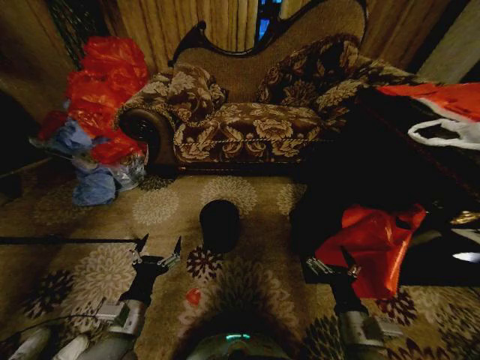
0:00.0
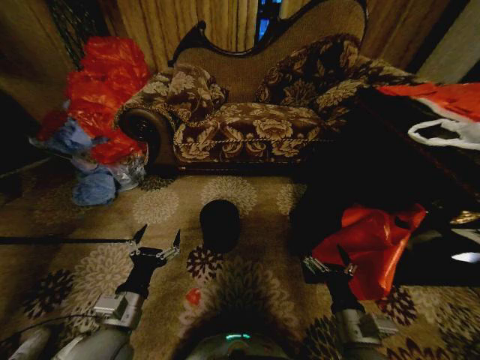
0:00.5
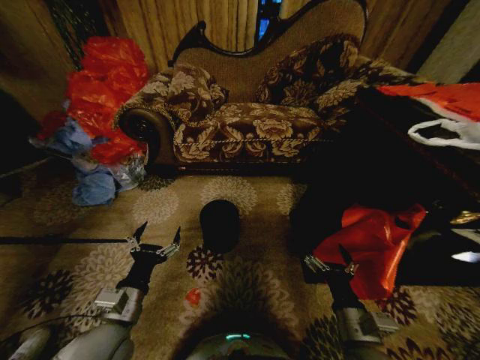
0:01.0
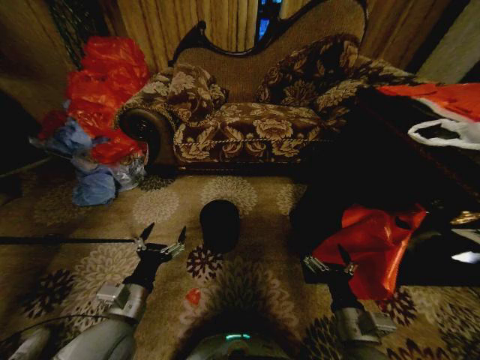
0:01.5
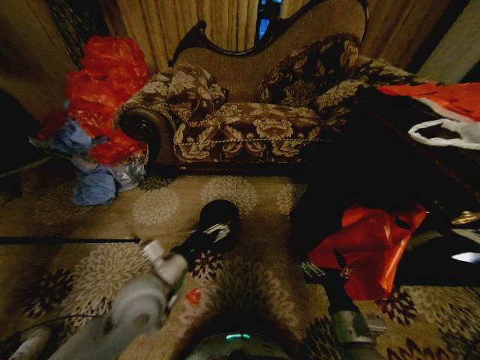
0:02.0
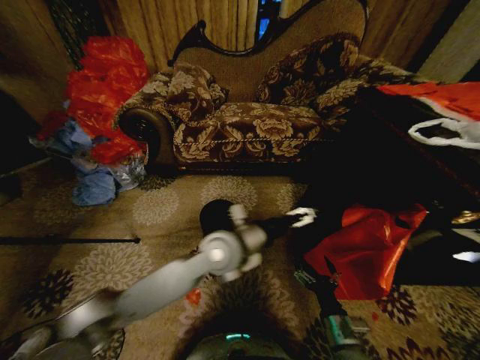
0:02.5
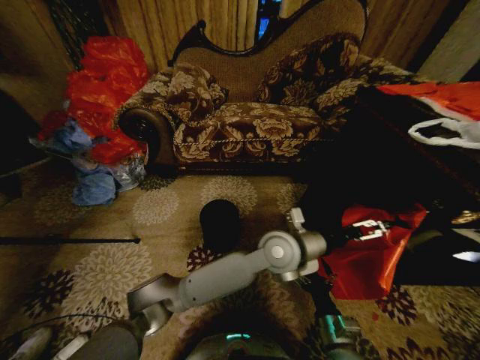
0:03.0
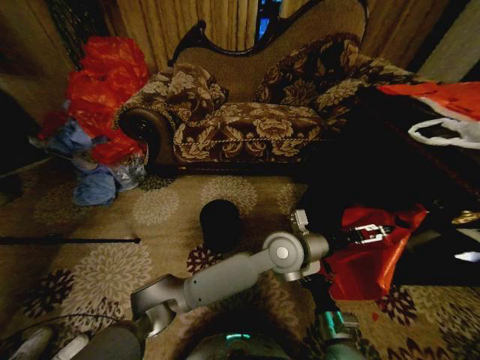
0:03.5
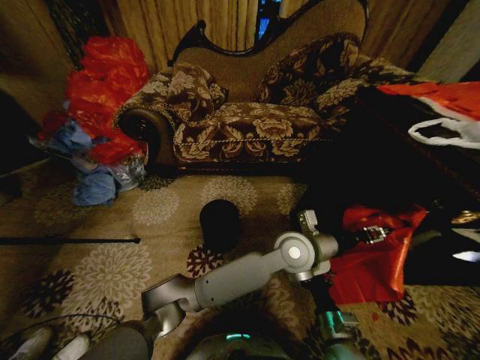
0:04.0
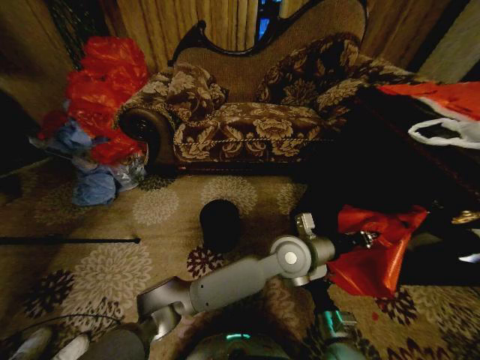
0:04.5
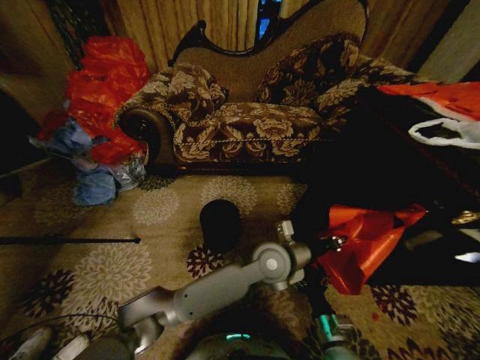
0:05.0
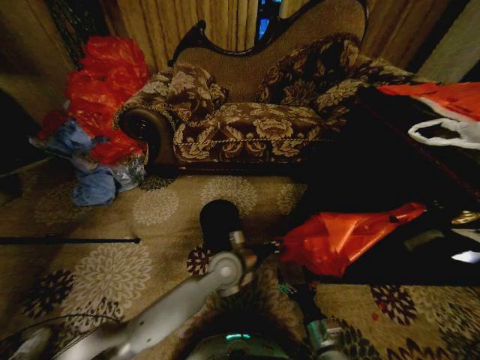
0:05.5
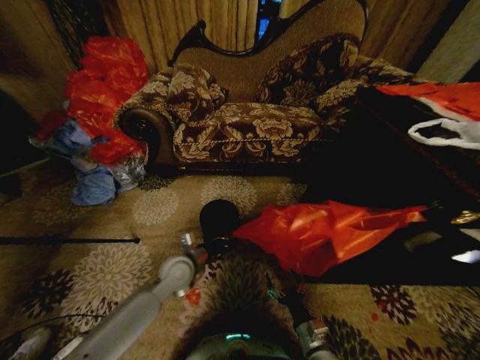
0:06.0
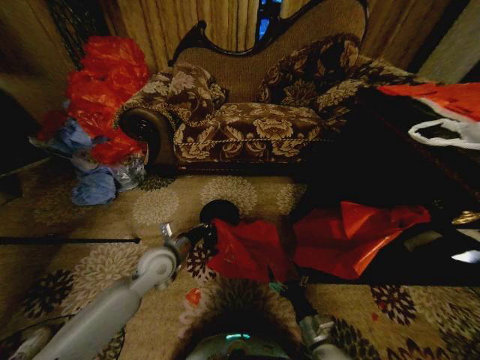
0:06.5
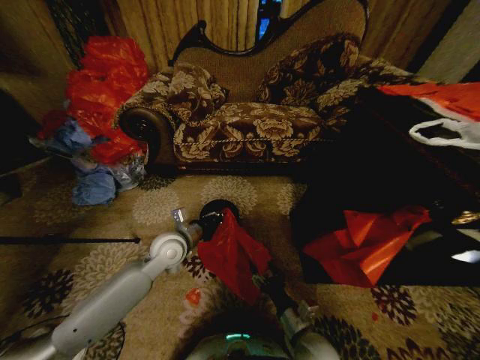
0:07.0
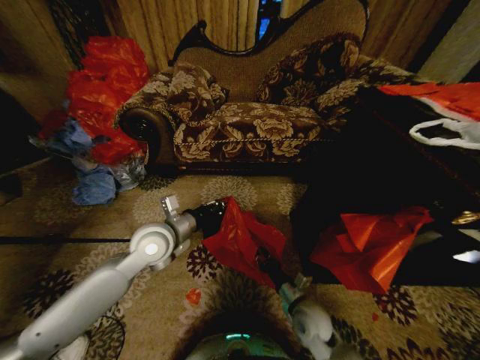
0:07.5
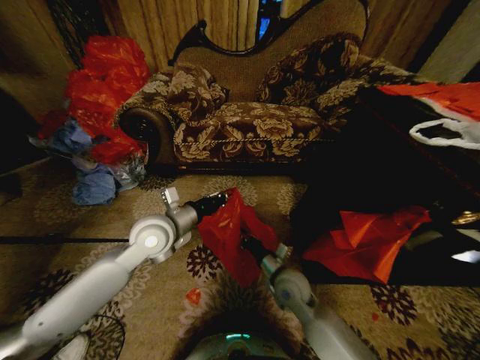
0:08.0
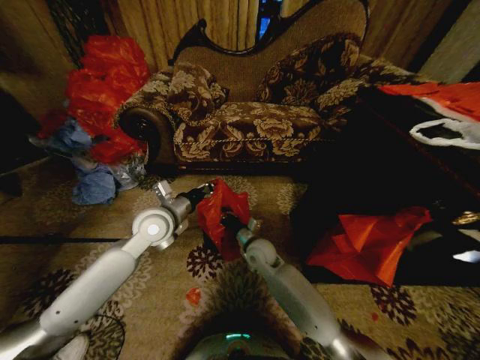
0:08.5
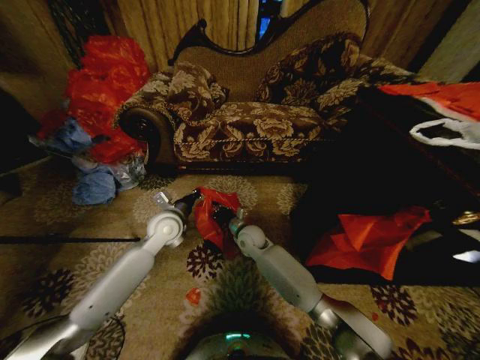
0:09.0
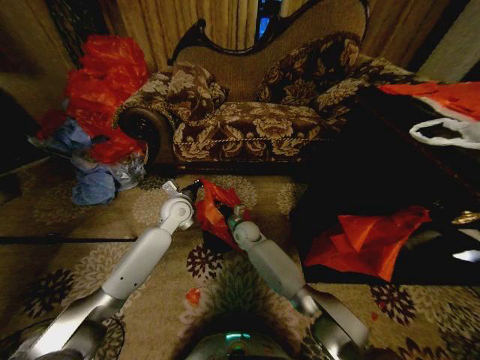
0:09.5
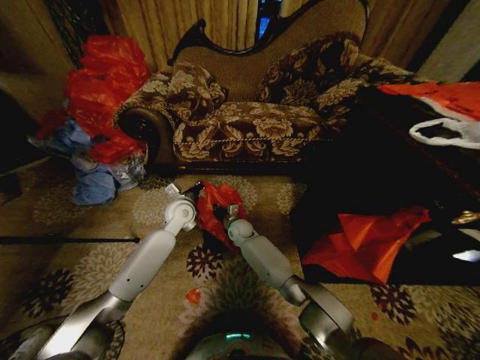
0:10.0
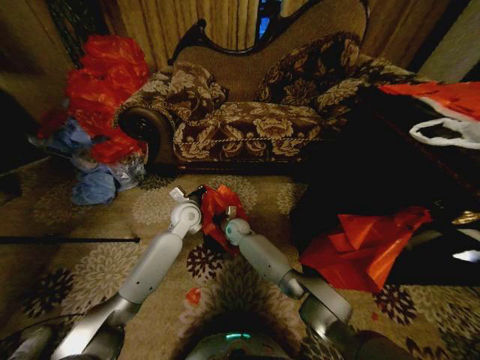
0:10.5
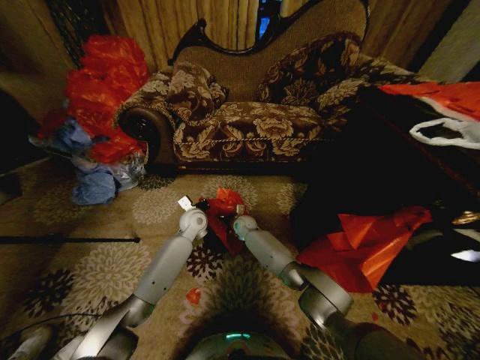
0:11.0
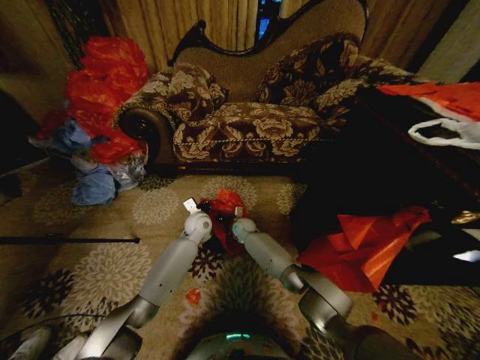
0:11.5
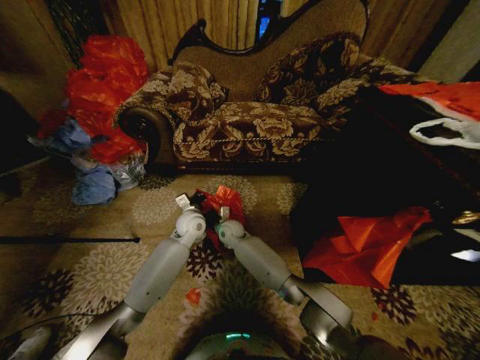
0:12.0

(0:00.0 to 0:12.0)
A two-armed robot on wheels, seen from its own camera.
Task of the whole recording: Place a garbage bag over the trash bin.
0:02.0 - 0:04.0: The right gripper goes some 5 cm downward. Meanwhile the left gripper goes some 30 cm to the right, and closes up.
0:04.0 - 0:06.0: The left gripper moves to the left, some 30 cm, and closes its fingers. Meanwhile the right gripper travels downward by some 5 cm.
0:06.0 - 0:08.0: The left gripper moves upward, approximately 15 cm, while the right gripper heads forward, upward and to the left, covering about 20 cm, and closes up.
0:08.0 - 0:10.0: The left gripper travels forward and downward by some 15 cm. The right gripper moves forward and to the left, approximately 25 cm.
0:10.0 - 0:12.0: The right gripper ends up roughly 5 cm from where it was, and opens.

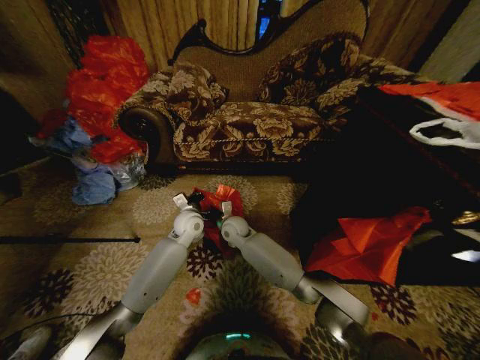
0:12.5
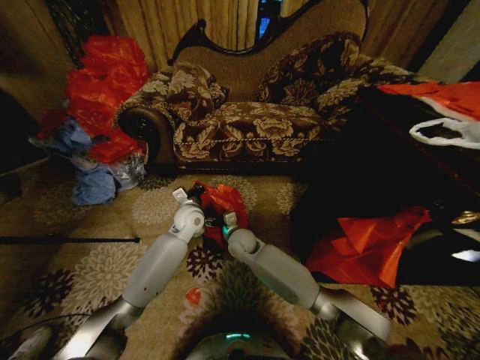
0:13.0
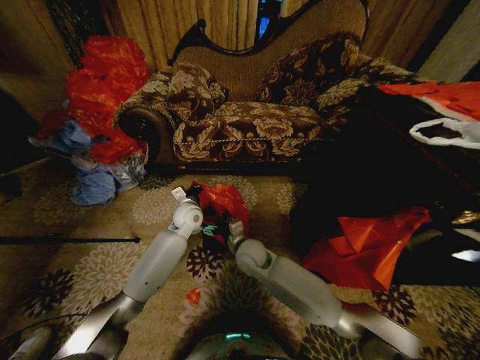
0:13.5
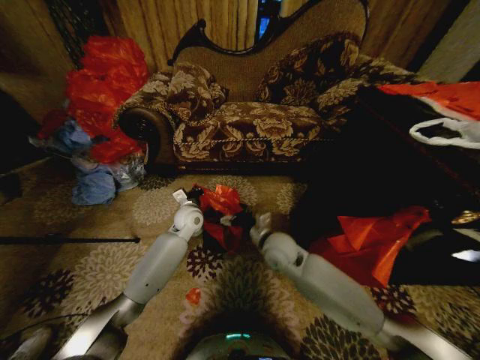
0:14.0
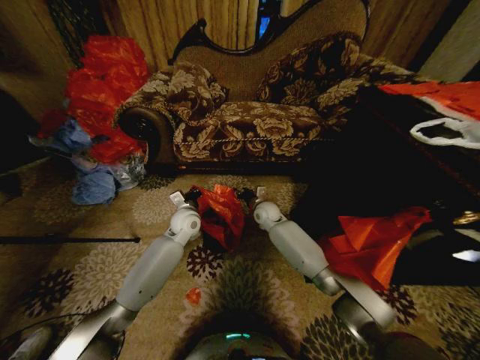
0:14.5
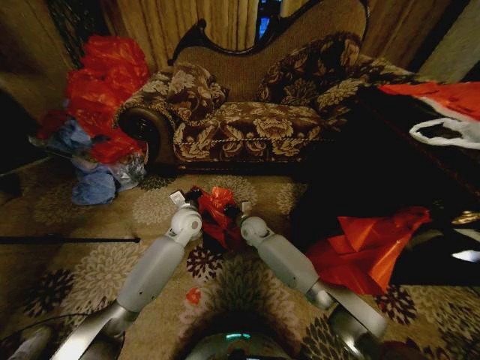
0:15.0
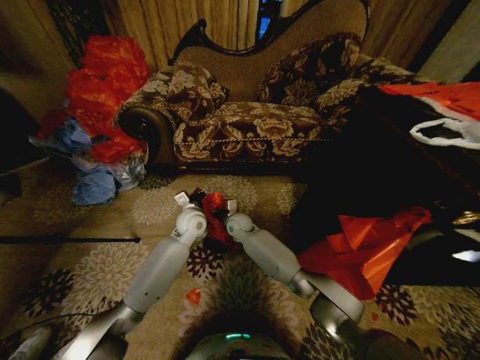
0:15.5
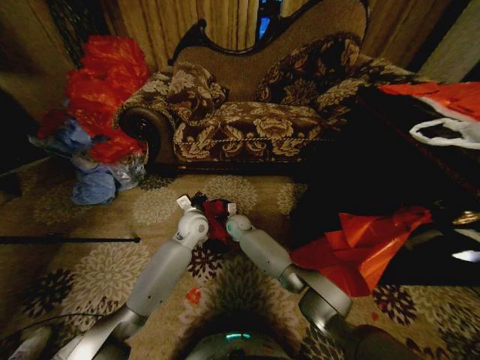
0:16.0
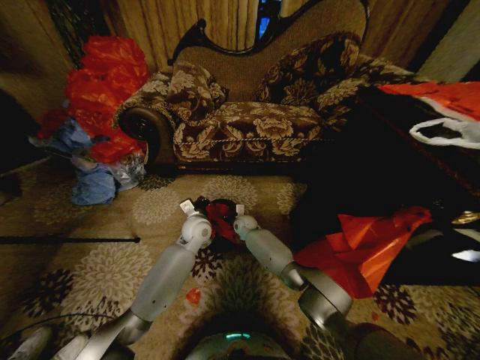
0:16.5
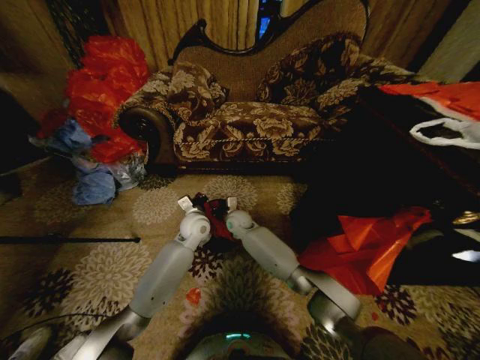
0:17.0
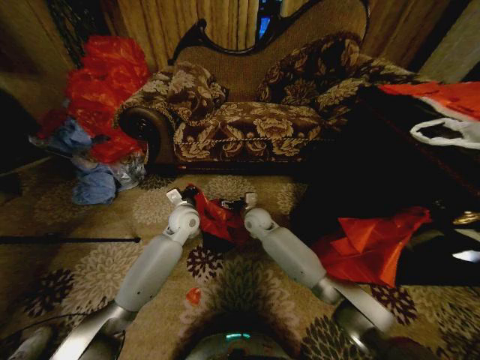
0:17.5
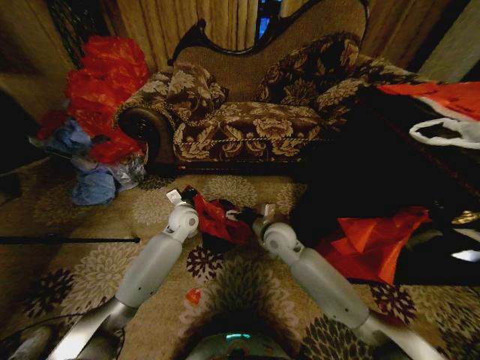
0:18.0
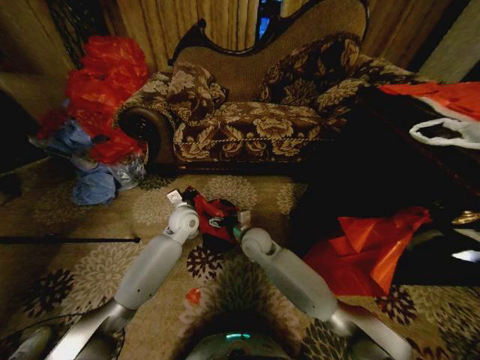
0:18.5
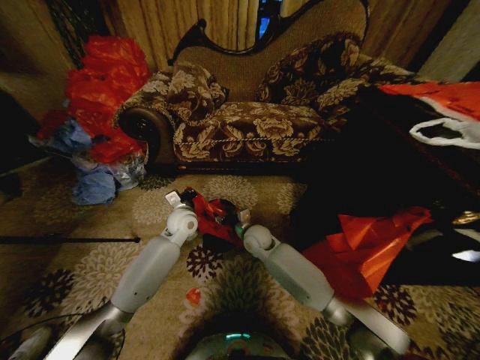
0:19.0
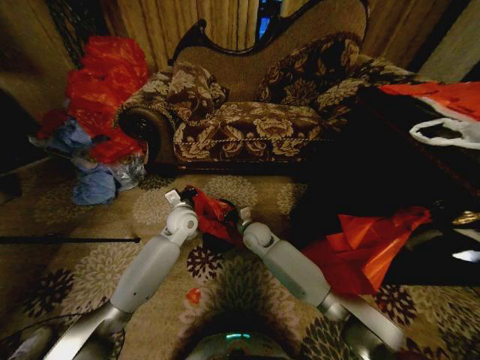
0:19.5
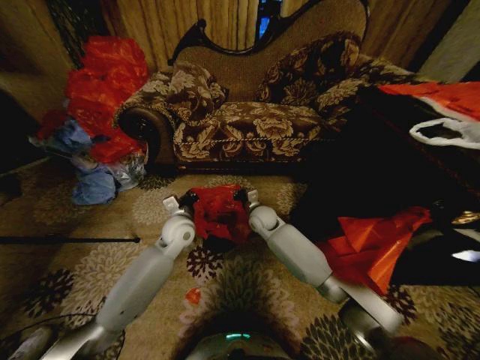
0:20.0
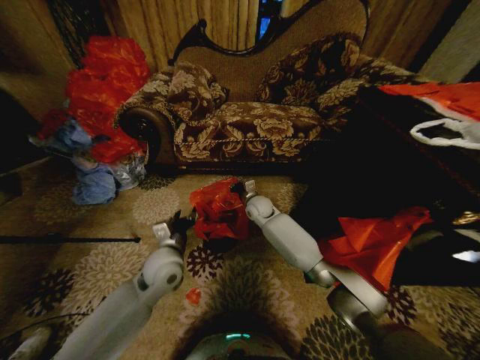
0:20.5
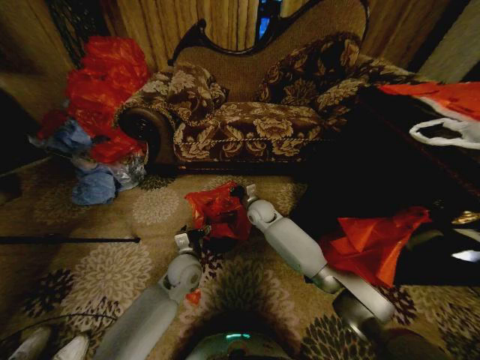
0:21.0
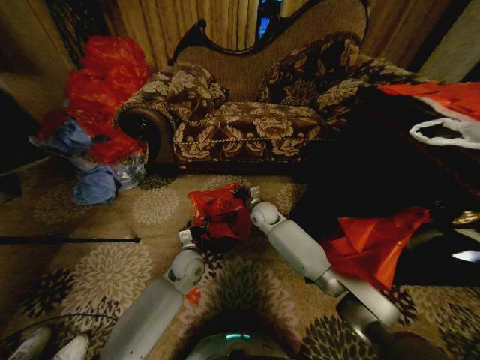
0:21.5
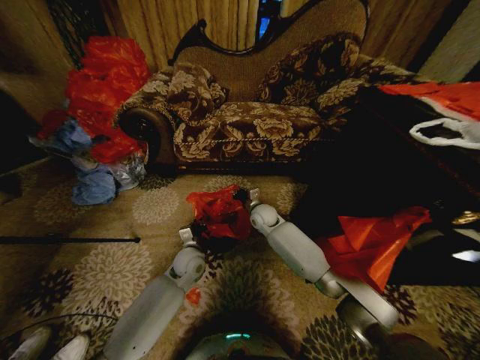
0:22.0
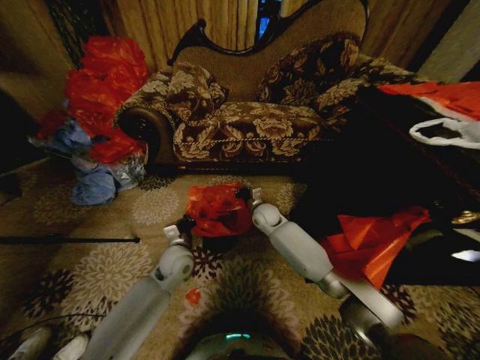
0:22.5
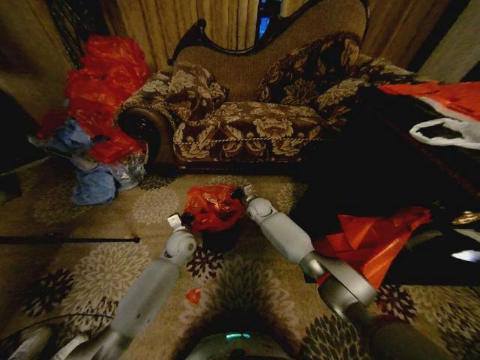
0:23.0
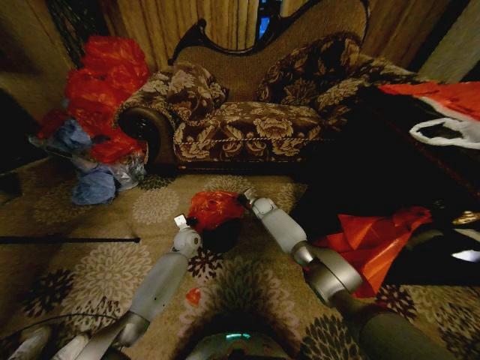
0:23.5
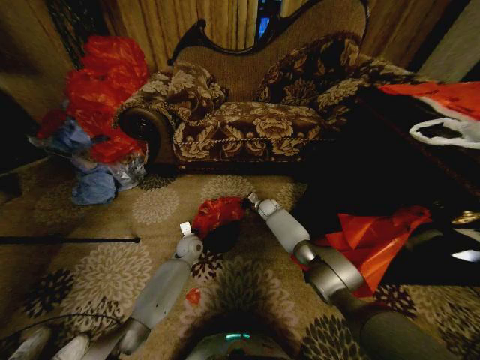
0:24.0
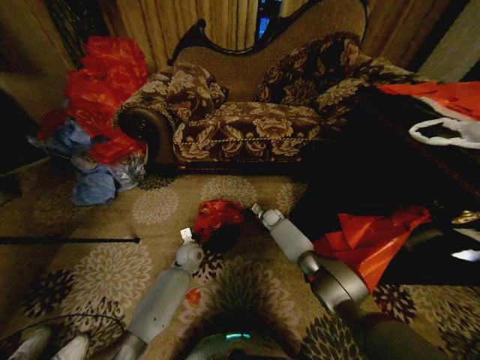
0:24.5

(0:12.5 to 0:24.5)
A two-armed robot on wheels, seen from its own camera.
Task of the whole recording: Place a garbage bag over the trash bin.
0:12.5 - 0:14.5: The right gripper goes some 15 cm to the right and forward, and closes its fingers.
0:14.5 - 0:16.5: The right gripper shifts about 10 cm downward and to the left, and closes its fingers.
0:16.5 - 0:18.5: The right gripper moves backward and upward, roughly 15 cm, and opens; the left gripper moves some 5 cm.
0:18.5 - 0:20.5: The right gripper is displaced forward by approximately 10 cm, and closes up; the left gripper goes some 15 cm backward, and opens its fingers.
0:20.5 - 0:22.5: The left gripper is displaced downward by about 5 cm, and closes its fingers.
0:22.5 - 0:24.5: The right gripper is displaced downward, forward and to the right by approximately 15 cm. The left gripper goes about 15 cm downward and forward.

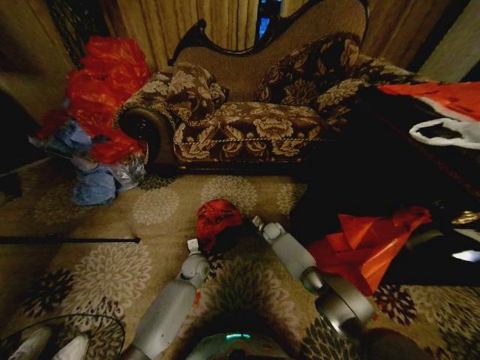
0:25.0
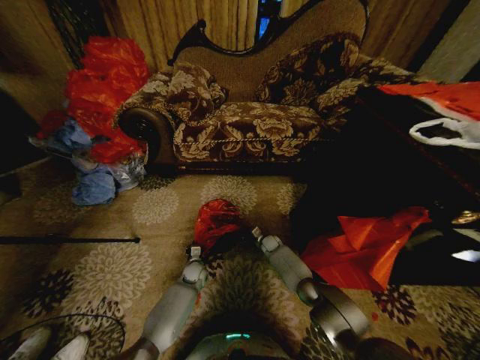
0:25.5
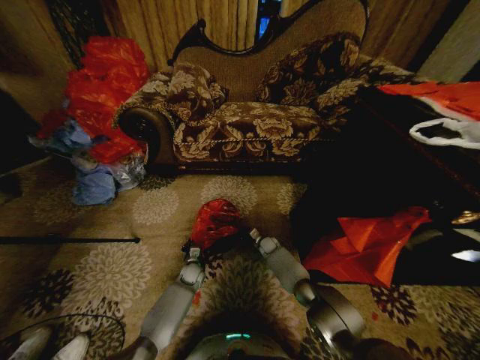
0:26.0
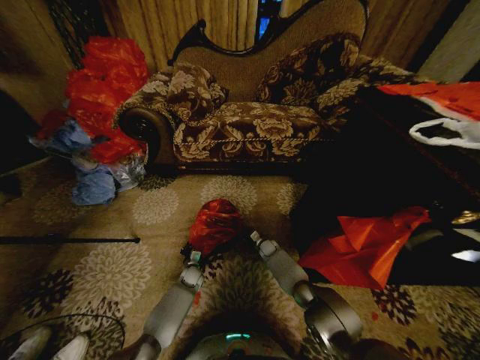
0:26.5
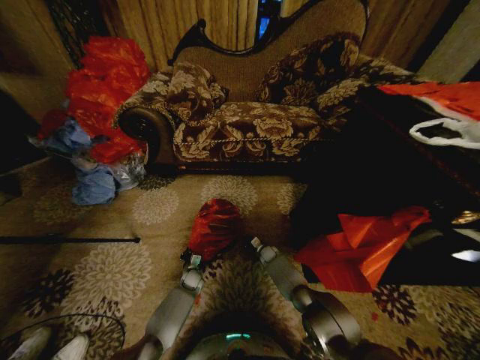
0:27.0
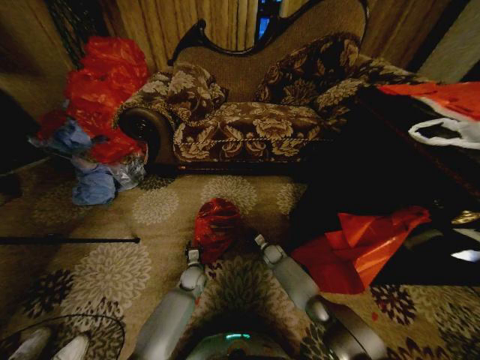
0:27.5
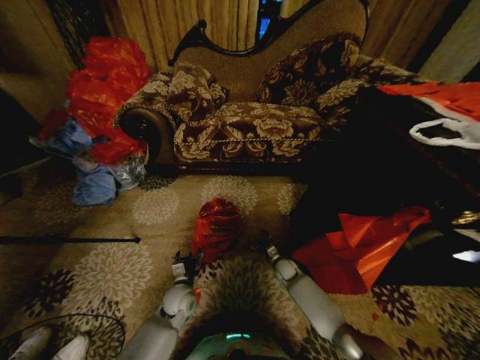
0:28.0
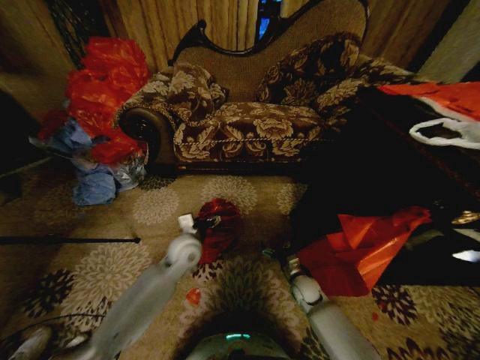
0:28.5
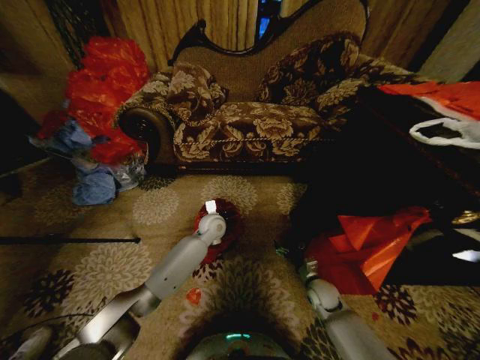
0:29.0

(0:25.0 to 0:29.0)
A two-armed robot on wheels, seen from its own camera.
Task of the whole recording: Place a garbage bag over the trash bin.
0:25.0 - 0:27.0: The right gripper heads downward and backward, covering approximately 10 cm; the left gripper is displaced downward by about 15 cm.
0:27.0 - 0:29.0: The left gripper goes roughly 30 cm upward, and opens its fingers; the right gripper travels backward, to the right and upward by approximately 25 cm, and opens up.
